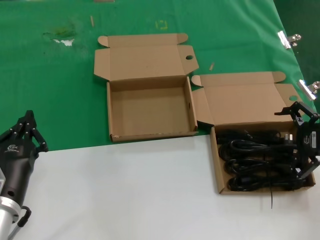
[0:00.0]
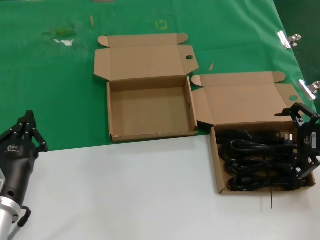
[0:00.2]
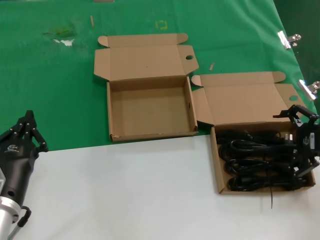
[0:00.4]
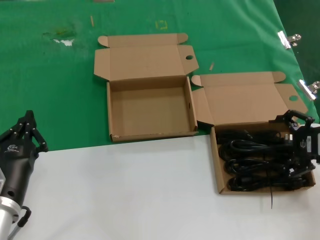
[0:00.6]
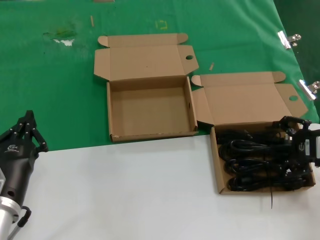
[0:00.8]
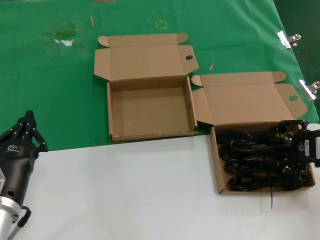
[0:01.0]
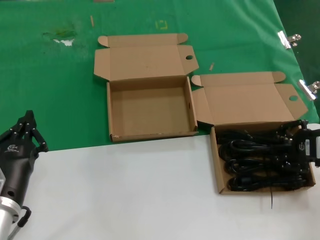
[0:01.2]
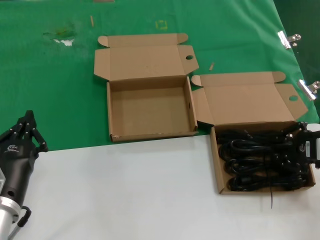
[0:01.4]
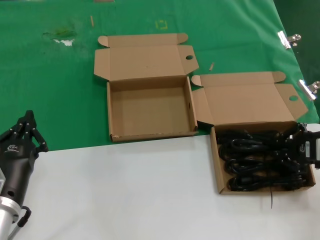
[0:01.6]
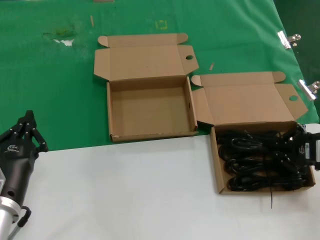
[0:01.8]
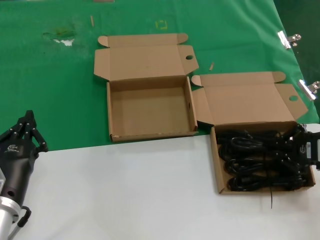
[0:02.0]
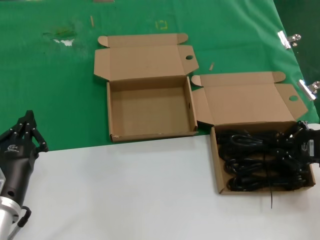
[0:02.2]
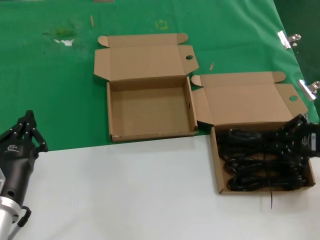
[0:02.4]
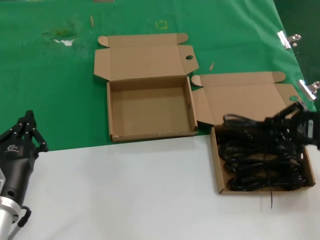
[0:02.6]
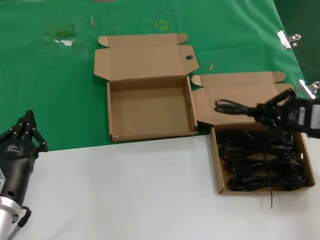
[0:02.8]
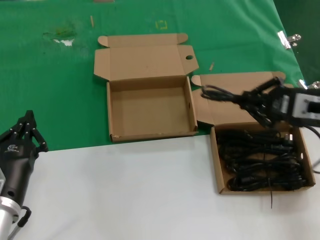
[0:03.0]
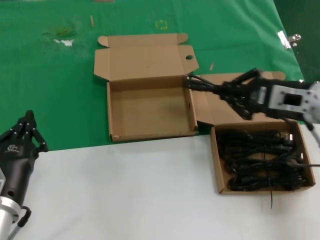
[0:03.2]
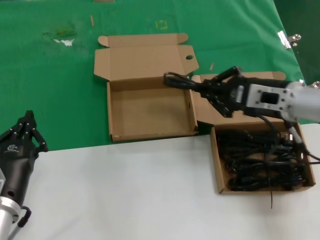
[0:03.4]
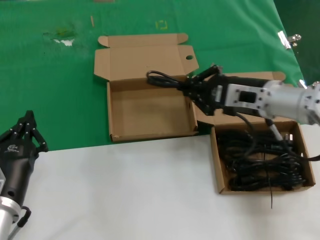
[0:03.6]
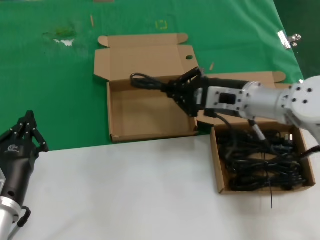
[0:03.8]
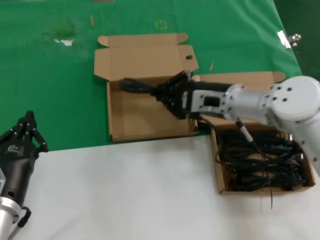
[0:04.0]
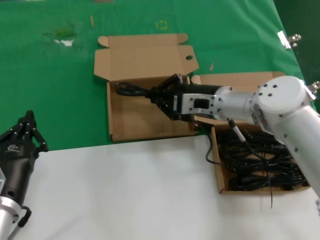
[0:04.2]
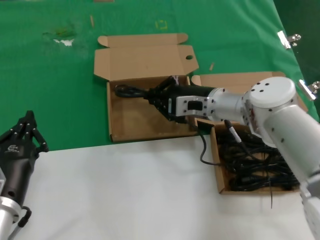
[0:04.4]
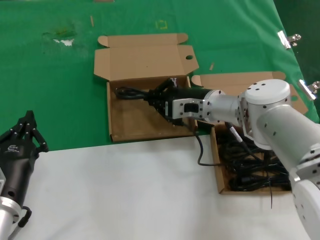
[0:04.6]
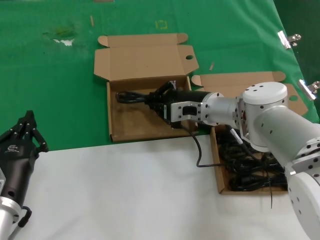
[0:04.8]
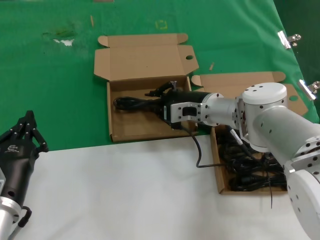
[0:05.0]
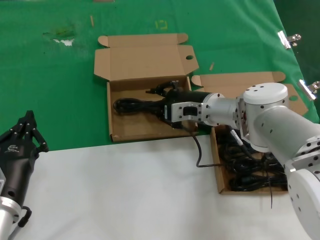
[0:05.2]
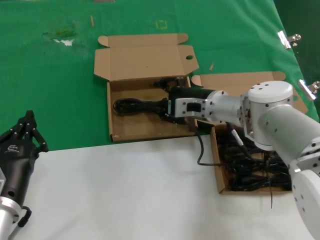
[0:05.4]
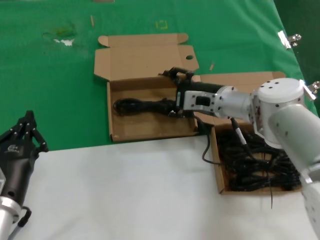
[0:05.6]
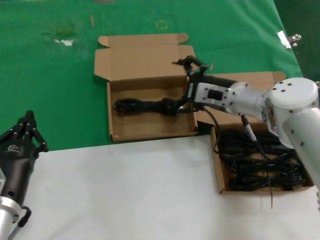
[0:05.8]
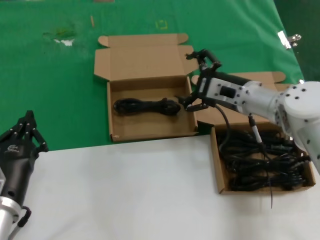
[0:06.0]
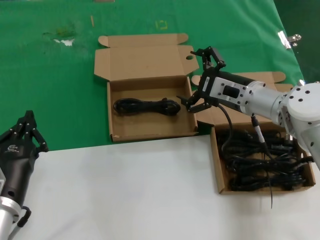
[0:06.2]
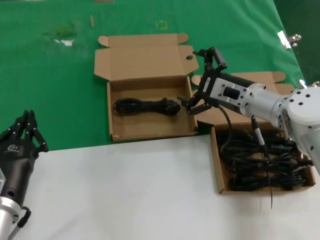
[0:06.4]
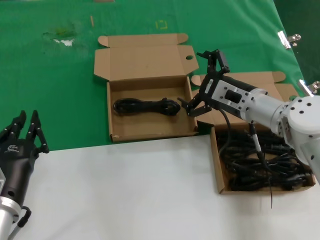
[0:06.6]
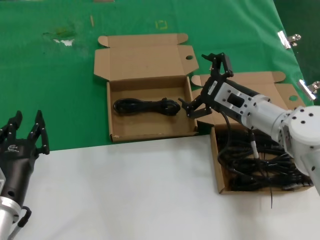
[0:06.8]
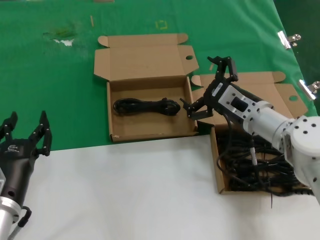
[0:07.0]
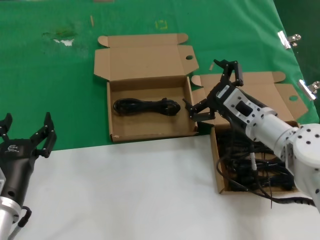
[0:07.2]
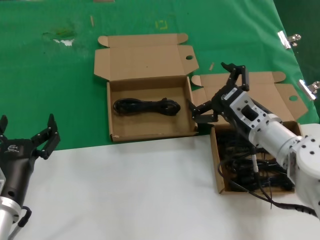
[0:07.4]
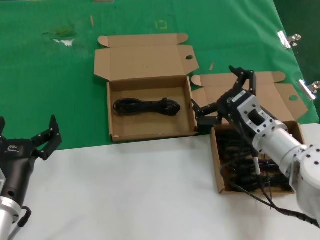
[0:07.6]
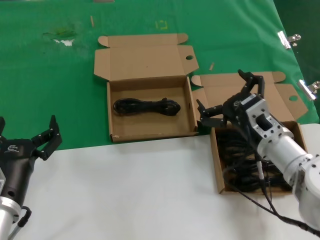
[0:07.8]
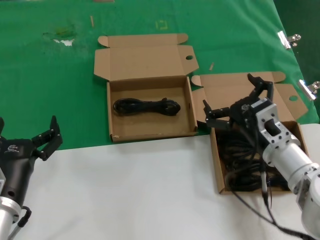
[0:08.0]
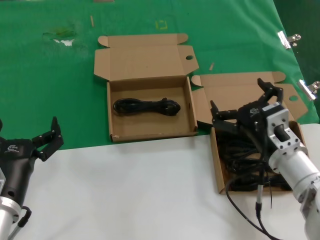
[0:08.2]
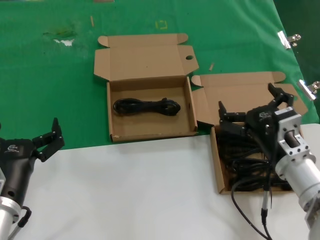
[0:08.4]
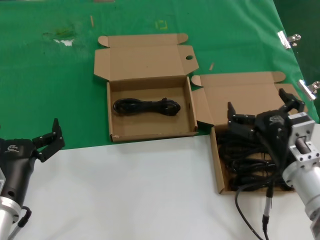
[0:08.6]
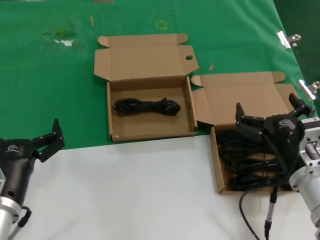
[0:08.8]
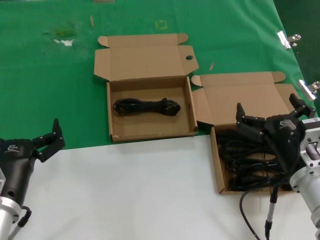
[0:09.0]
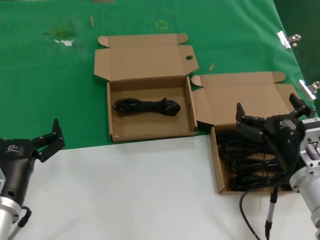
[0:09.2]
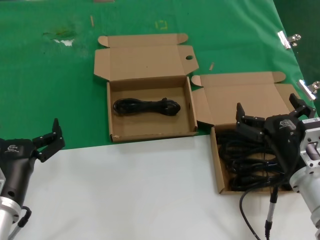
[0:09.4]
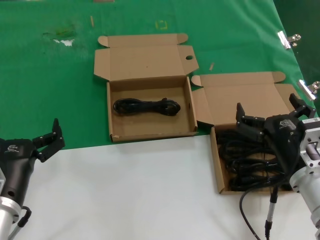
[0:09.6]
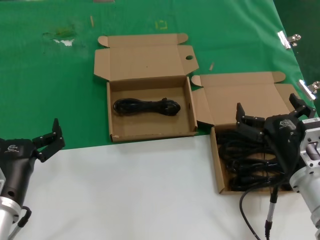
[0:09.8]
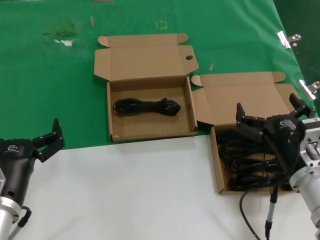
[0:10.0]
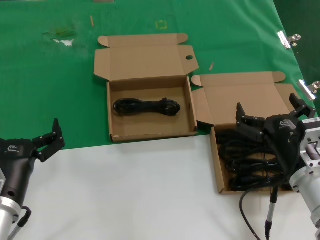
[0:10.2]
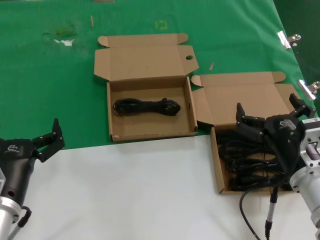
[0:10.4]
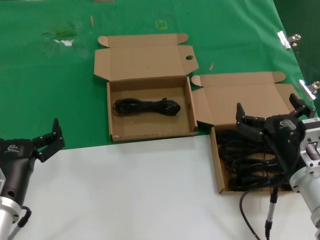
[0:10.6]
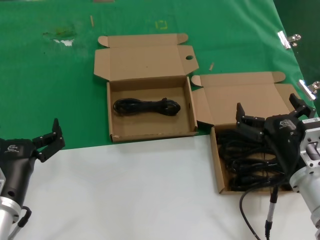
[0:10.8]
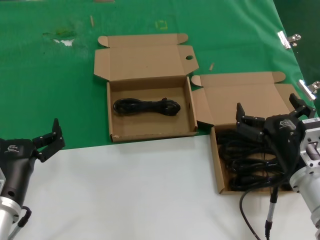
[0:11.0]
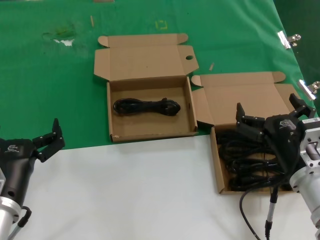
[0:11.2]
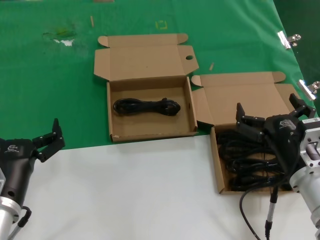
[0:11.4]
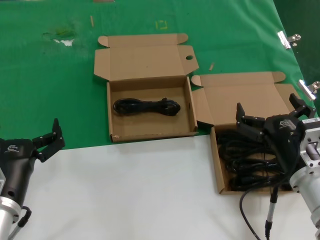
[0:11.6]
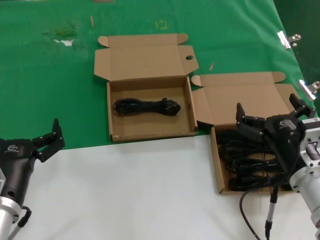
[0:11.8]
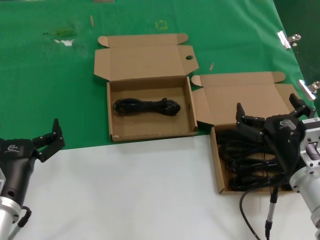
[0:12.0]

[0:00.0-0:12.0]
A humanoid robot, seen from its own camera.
Task of the whole recording: take the parts from the box containing them and put them into an empty box.
Step, 0:01.8 to 0:05.4: Place the data cable in the another box.
0:00.0 to 0:01.6: The hands make only small movements.
0:01.6 to 0:03.0: The right hand shifts about 10 cm upward and to the left.
0:03.0 to 0:04.4: The right hand shifts about 25 cm to the left, forward and downward.
0:04.4 to 0:06.0: The right hand moves to the right, roughly 5 cm.
0:06.0 to 0:07.6: The right hand shifts some 10 cm backward and downward.
0:07.6 to 0:09.0: The right hand travels backward by approximately 10 cm.
0:09.0 to 0:12.0: Both hands stay about where they are.

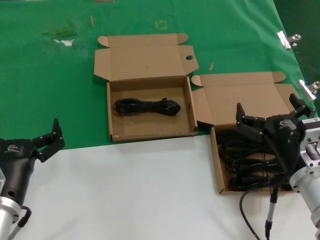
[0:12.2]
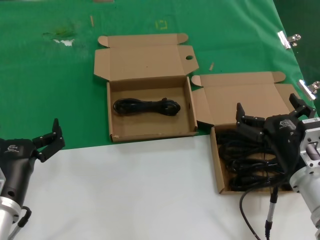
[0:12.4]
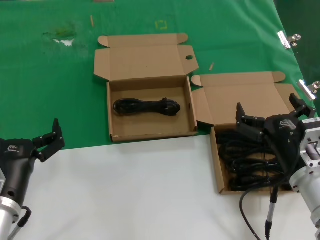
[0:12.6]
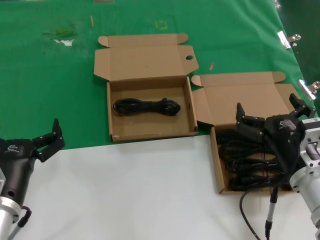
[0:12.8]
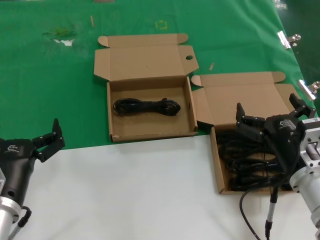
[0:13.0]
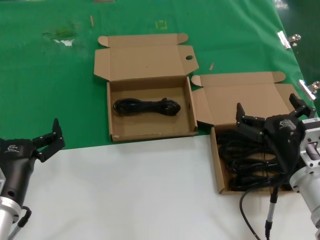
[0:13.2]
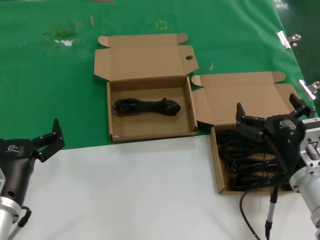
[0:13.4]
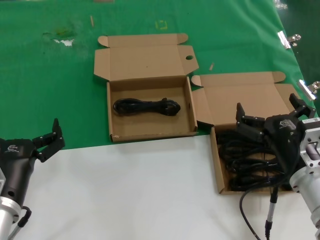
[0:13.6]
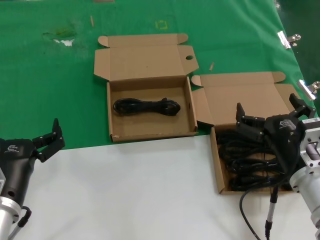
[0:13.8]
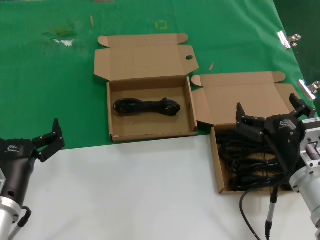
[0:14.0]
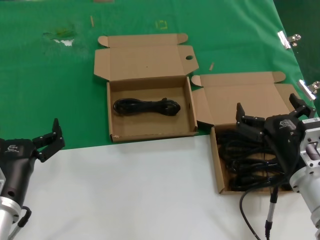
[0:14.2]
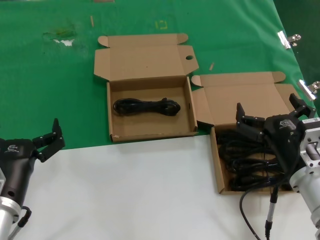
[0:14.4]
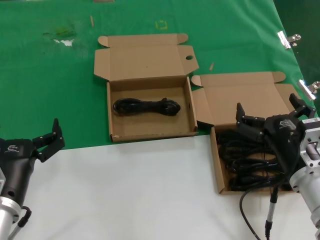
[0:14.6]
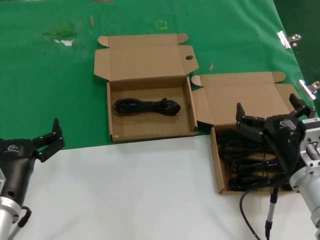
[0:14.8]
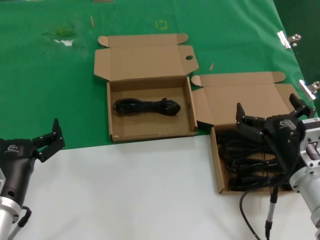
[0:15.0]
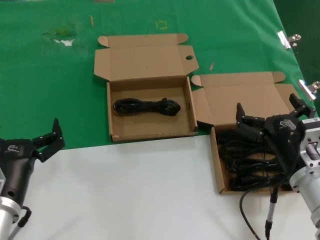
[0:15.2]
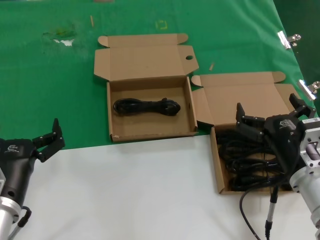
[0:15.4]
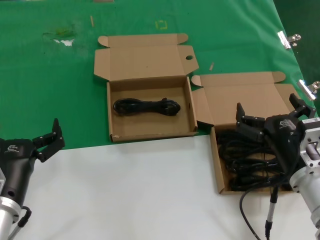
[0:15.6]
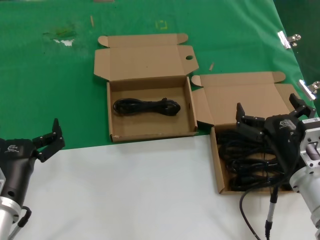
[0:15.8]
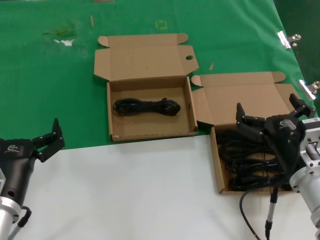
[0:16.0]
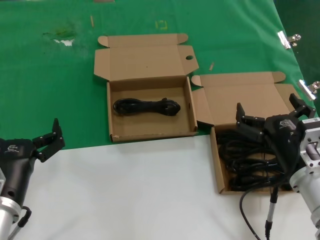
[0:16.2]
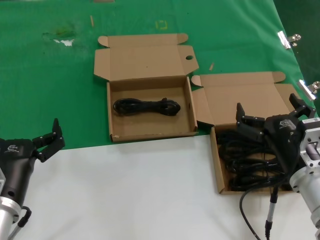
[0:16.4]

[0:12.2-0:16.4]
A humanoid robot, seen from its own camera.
Task of the whole recording: take the parts from the box containing them and put them into an empty box.
0:12.2 to 0:16.4: Neither hand changes place.
